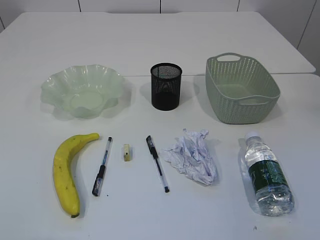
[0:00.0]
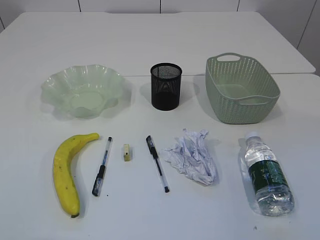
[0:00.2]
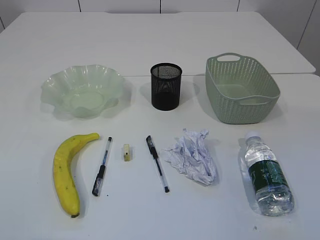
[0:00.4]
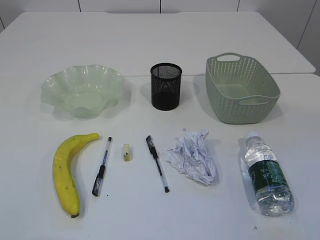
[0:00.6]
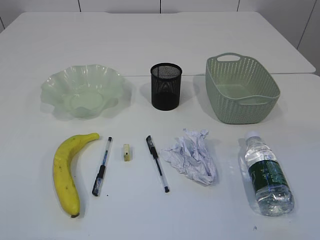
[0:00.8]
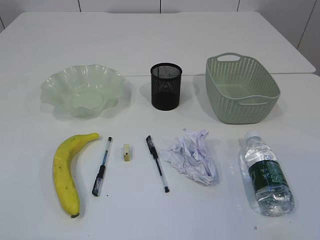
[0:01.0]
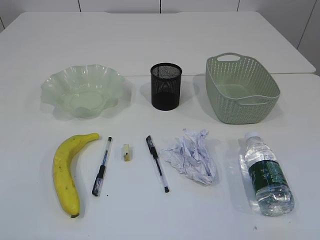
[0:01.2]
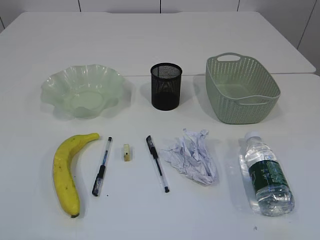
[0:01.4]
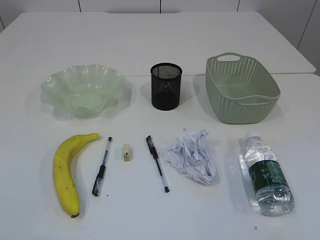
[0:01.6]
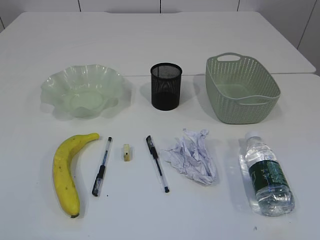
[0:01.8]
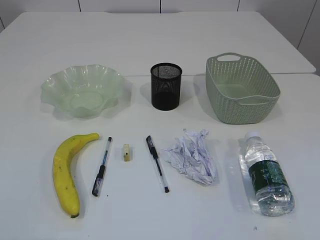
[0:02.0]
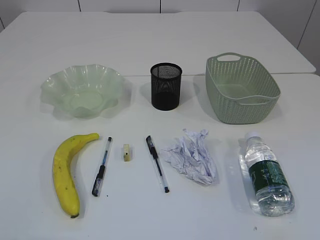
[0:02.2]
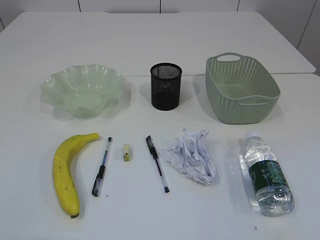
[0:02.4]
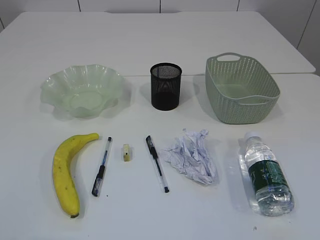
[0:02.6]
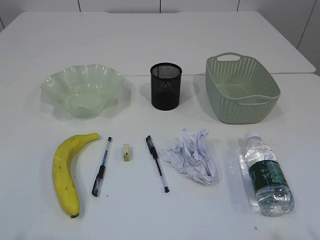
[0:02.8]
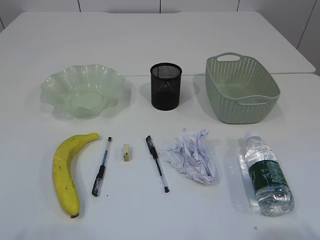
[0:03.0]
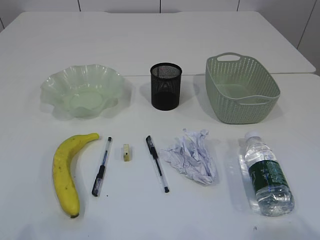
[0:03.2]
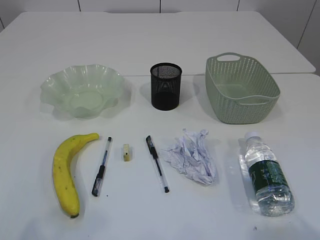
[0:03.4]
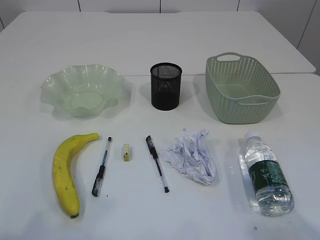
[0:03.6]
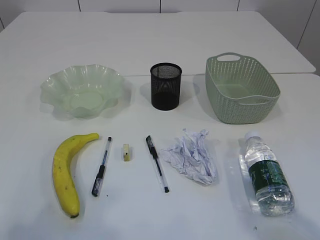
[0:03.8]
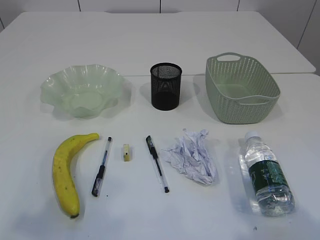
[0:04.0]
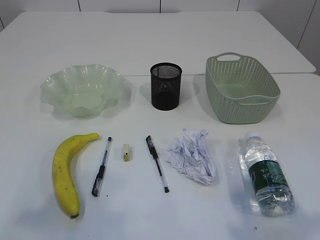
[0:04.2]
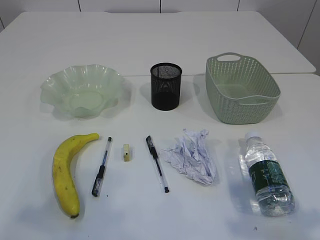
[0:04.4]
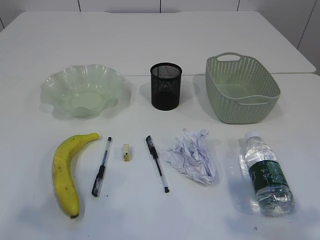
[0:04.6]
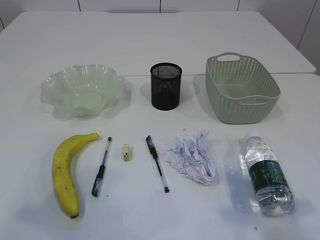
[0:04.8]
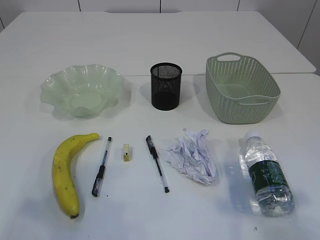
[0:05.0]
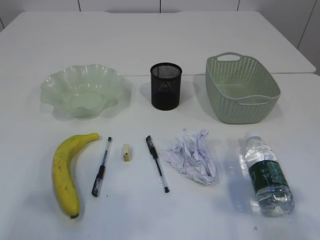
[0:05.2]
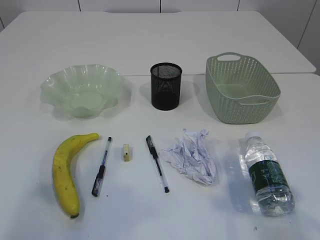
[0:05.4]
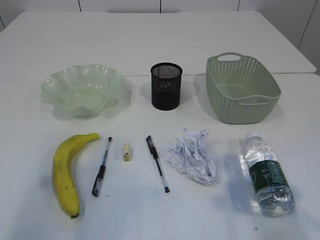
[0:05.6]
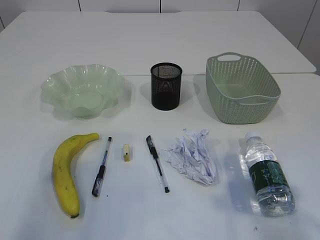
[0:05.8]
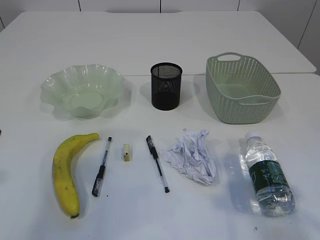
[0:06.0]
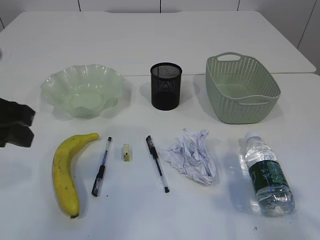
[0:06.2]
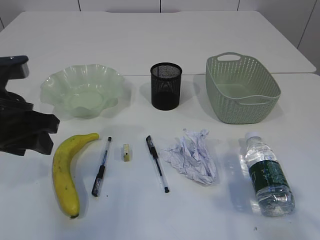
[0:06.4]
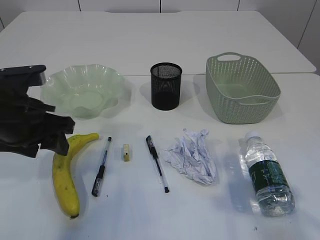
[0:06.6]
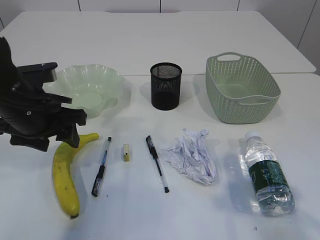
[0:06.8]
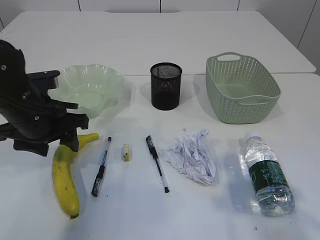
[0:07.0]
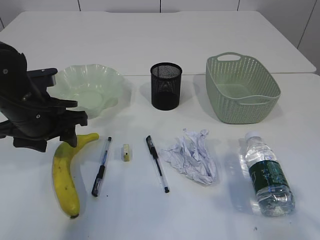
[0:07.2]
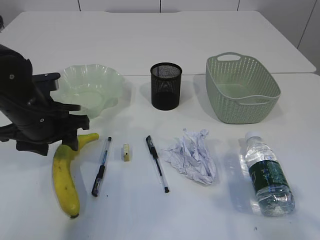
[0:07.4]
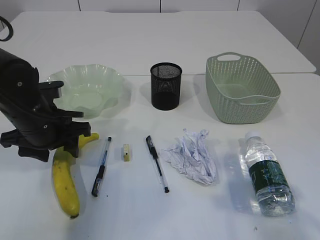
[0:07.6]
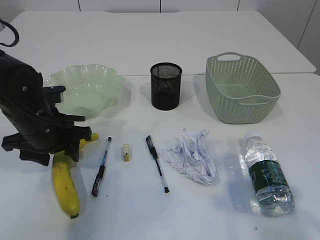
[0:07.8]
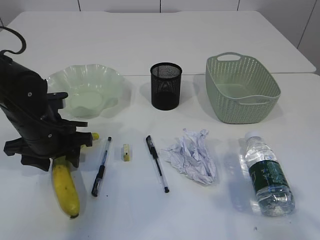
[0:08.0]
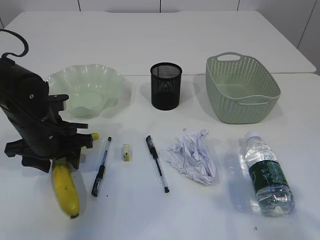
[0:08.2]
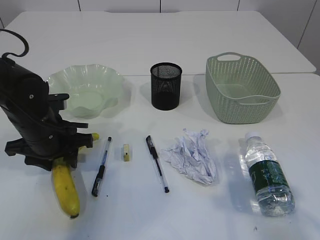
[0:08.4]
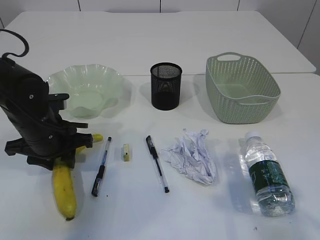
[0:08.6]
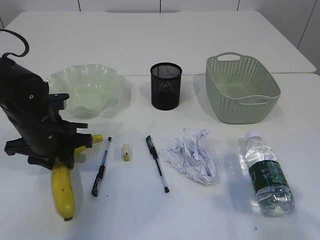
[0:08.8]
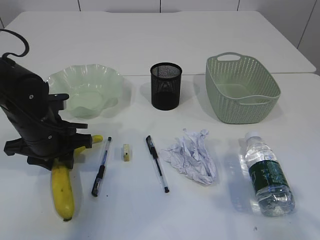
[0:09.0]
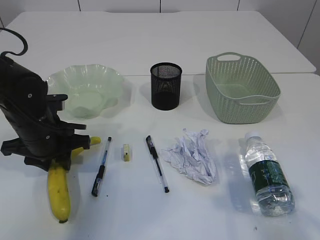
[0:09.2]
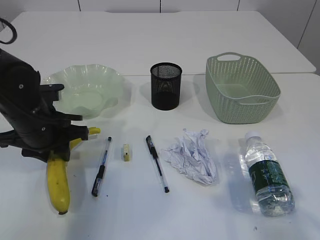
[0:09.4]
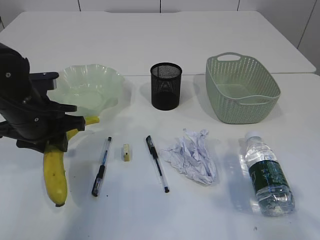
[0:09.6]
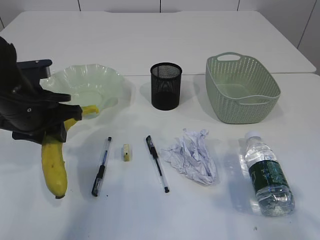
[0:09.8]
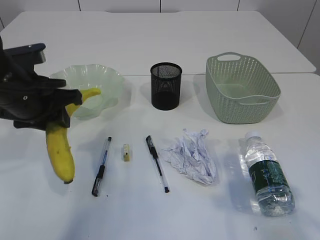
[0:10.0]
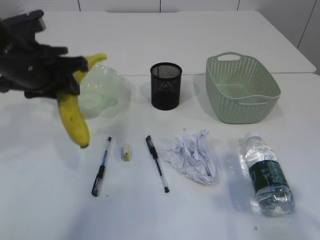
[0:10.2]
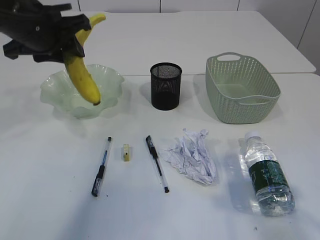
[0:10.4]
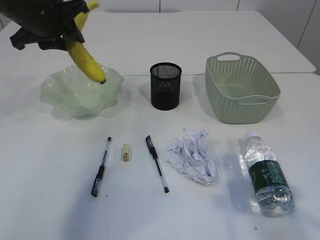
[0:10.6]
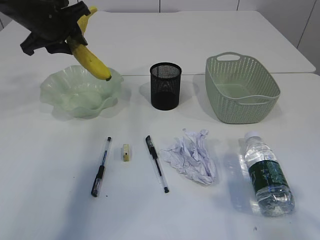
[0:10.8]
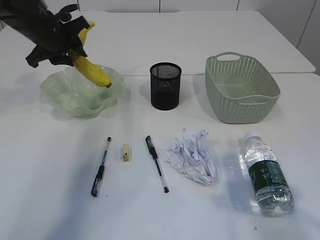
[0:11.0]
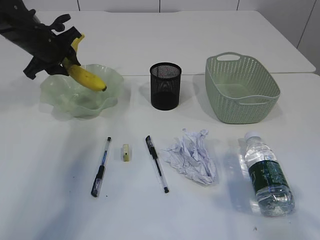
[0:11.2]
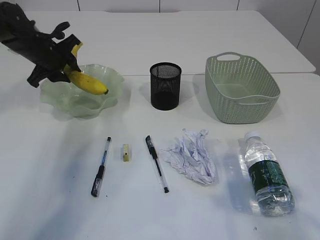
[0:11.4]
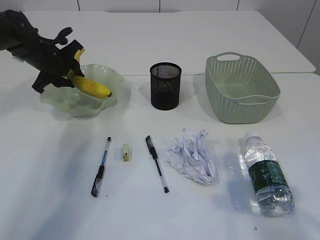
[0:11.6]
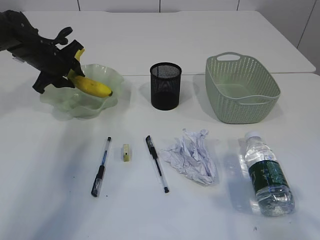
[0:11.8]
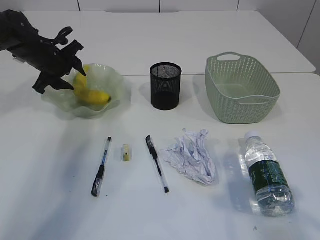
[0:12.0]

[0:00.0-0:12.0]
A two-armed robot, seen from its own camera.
0:03.0 to 0:04.4: The two grippers go roughly 10 cm forward.
0:06.0 to 0:07.6: The left gripper travels downward, forward and to the right by some 20 cm.
0:07.6 to 0:09.0: The left gripper closes up.
0:09.0 to 0:10.4: The left gripper goes approximately 15 cm upward.
0:10.4 to 0:12.0: The left gripper travels forward, downward and to the left by about 20 cm.

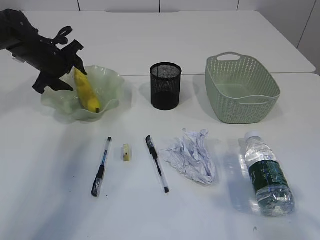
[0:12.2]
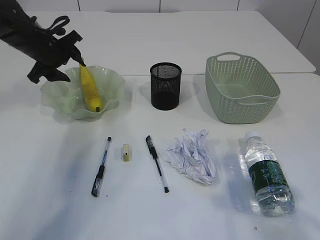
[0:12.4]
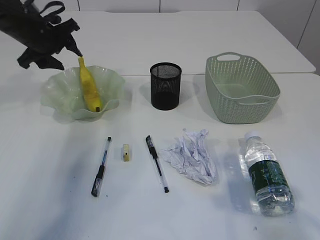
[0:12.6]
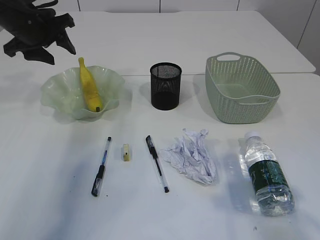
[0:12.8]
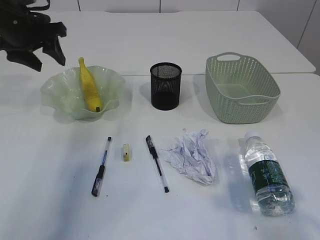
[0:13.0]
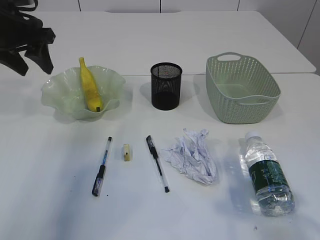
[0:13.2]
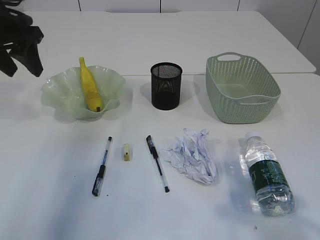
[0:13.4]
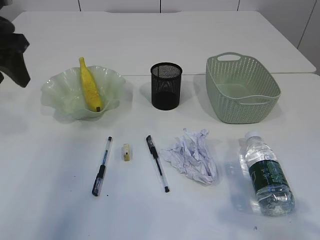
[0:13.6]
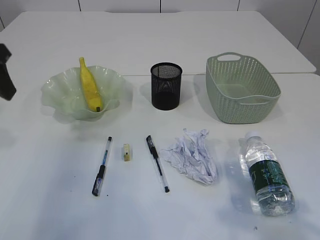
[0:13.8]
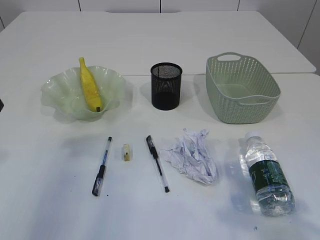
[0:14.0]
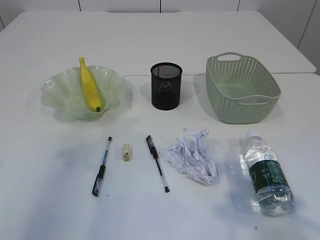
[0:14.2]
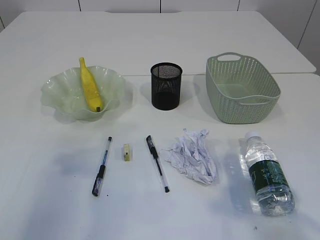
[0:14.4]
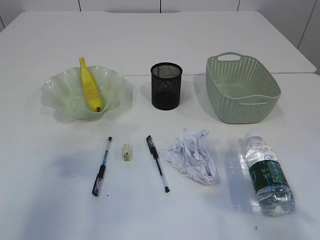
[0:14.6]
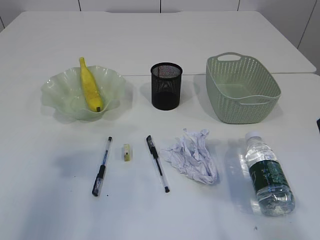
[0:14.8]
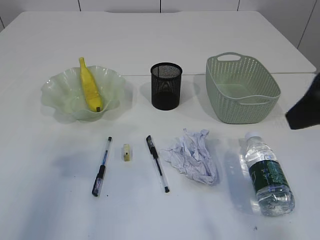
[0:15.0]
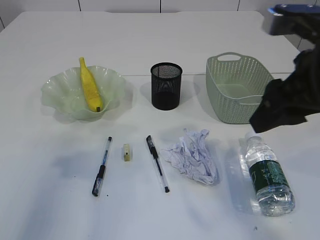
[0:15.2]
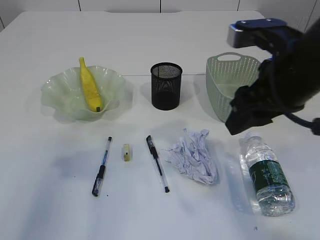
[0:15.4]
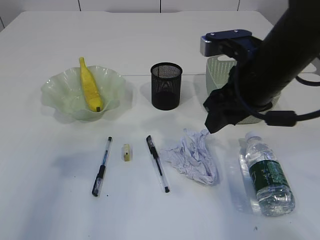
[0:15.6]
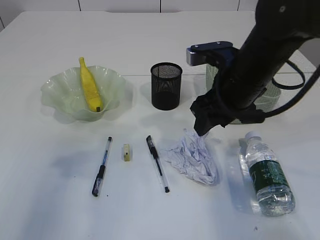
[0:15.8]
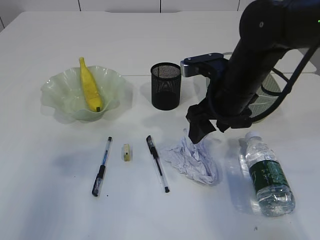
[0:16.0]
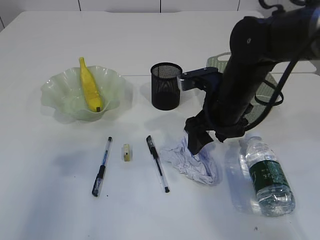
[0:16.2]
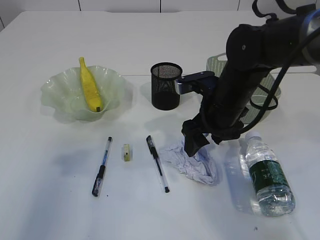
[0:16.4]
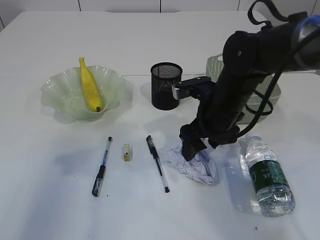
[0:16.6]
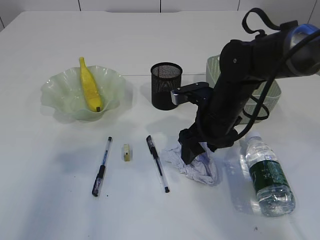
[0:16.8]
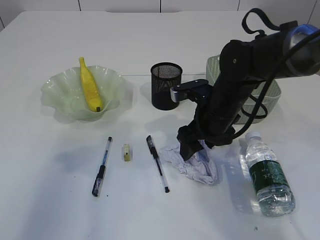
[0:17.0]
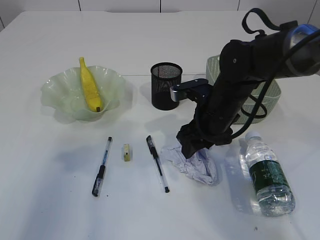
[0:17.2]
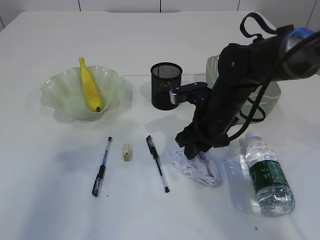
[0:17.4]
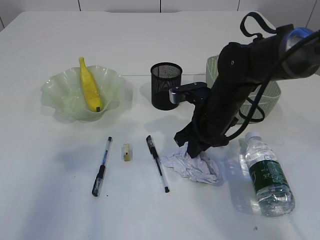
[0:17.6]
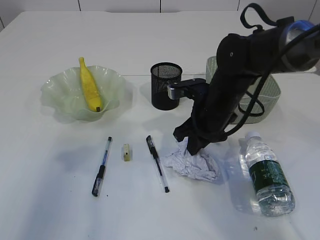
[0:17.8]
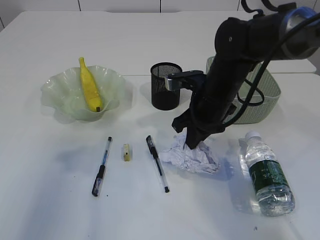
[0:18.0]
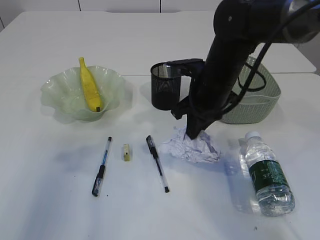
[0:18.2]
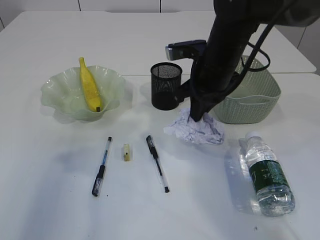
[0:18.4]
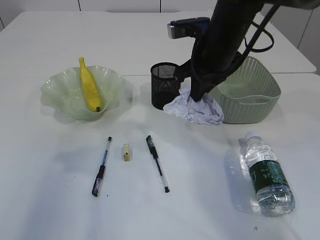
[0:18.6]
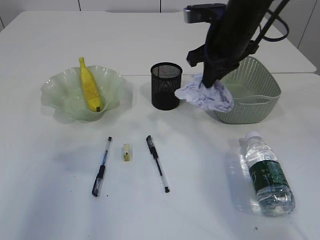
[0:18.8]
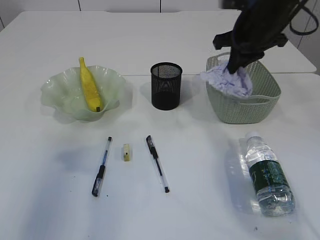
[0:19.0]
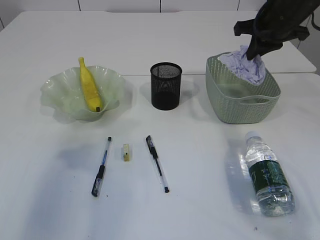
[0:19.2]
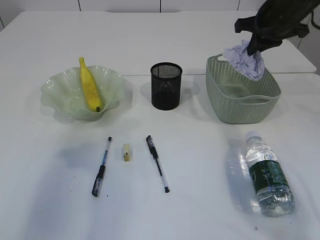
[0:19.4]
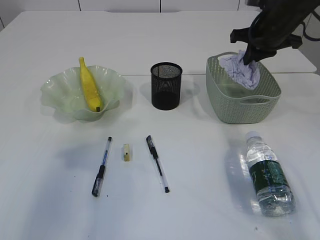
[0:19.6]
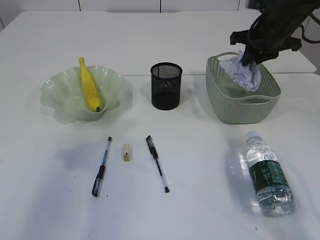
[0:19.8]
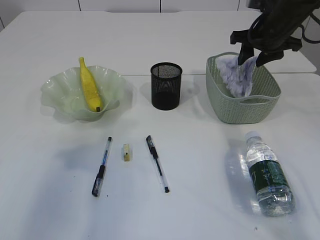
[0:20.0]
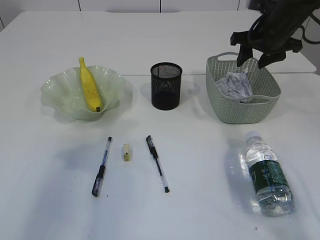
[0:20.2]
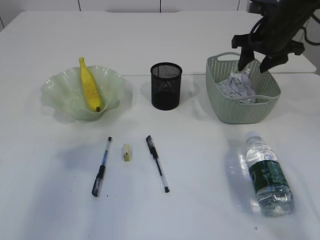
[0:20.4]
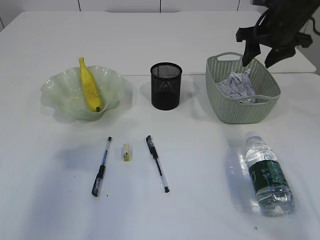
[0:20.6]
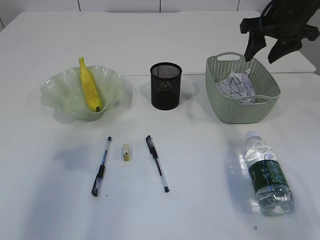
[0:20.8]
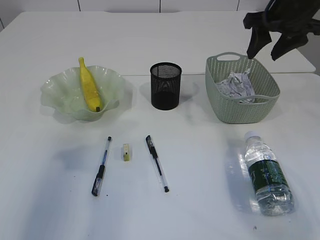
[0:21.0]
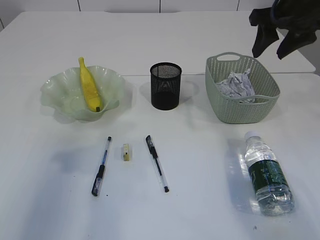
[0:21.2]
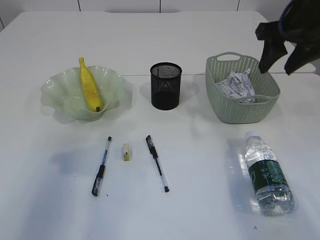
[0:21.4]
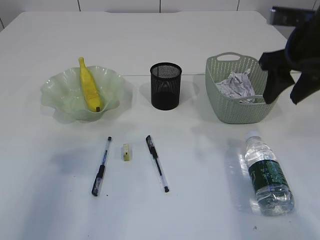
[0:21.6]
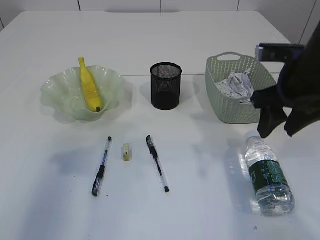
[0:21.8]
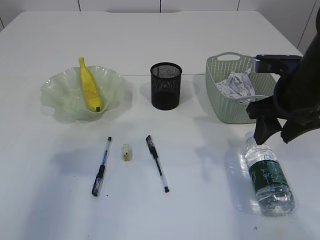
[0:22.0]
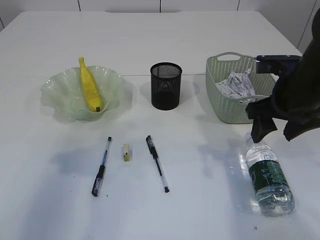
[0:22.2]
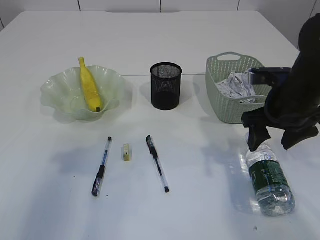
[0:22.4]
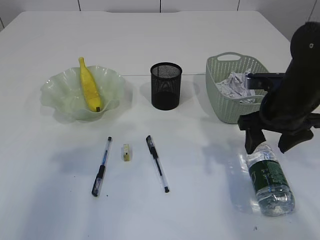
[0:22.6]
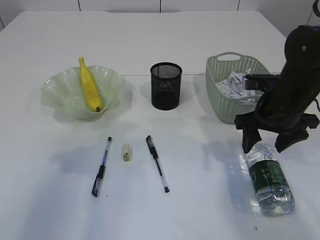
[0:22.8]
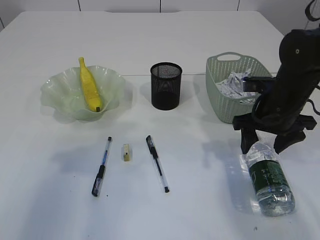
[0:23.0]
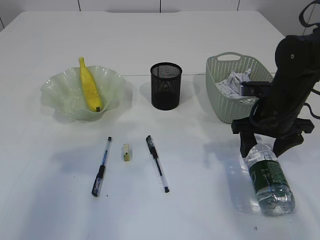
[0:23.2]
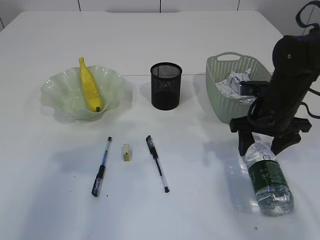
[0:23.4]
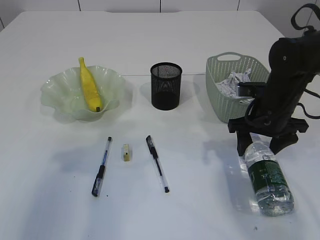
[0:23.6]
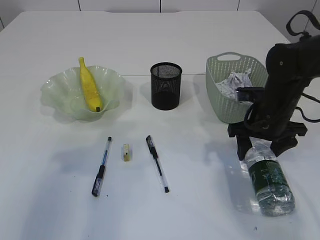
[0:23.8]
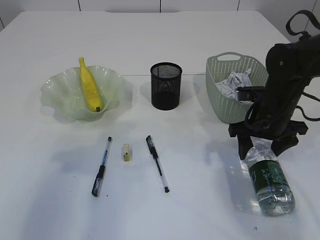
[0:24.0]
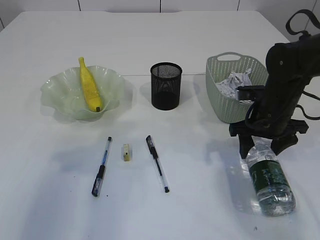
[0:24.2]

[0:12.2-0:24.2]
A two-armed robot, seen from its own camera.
Step, 0:12.8 to 0:18.2: Pick up the waste paper.
Step, 0:18.4 to 0:21.2: Place the waste paper in the basket.
0:12.2 to 0:13.8: The left gripper goes about 25 cm backward and upward.
0:13.8 to 0:15.2: The right gripper travels forward and to the left by some 10 cm, while the left gripper shifts some 10 cm backward.
0:15.2 to 0:16.6: The right gripper moves downward, forward and to the left, about 20 cm.
0:16.6 to 0:18.2: The right gripper closes up.
0:18.2 to 0:19.8: The right gripper heads to the right and forward, covering some 15 cm.
0:19.8 to 0:21.2: The right gripper moves upward and backward, approximately 10 cm, and opens.
0:21.2 to 0:22.6: The right gripper heads downward and backward, covering some 15 cm.
0:22.6 to 0:24.2: The right gripper moves some 5 cm.
